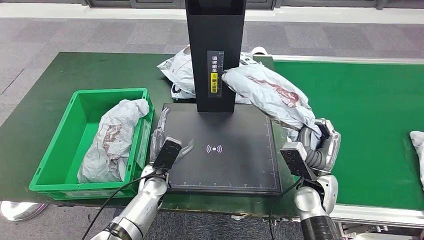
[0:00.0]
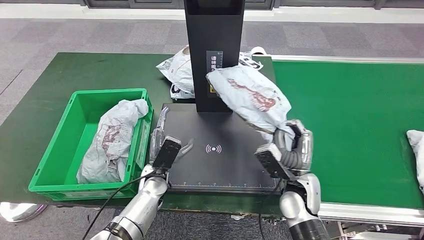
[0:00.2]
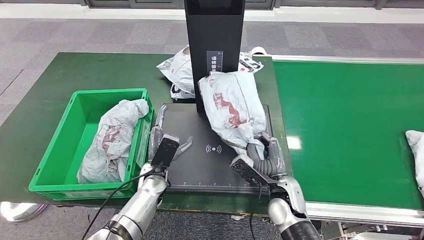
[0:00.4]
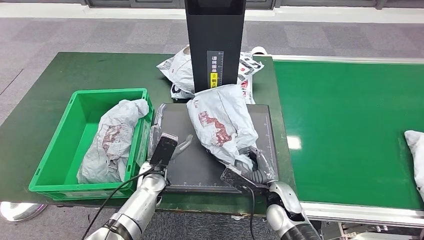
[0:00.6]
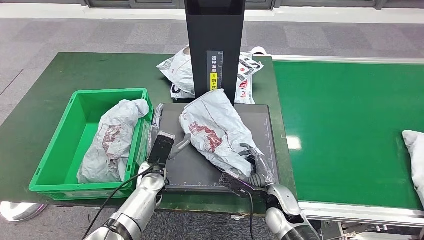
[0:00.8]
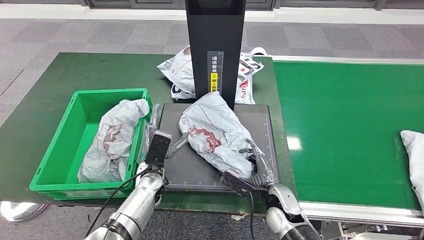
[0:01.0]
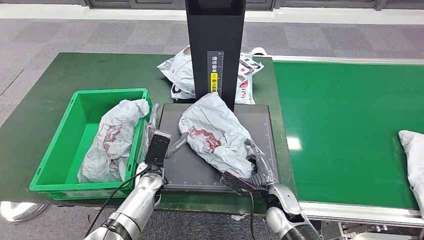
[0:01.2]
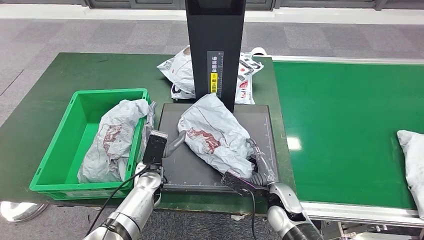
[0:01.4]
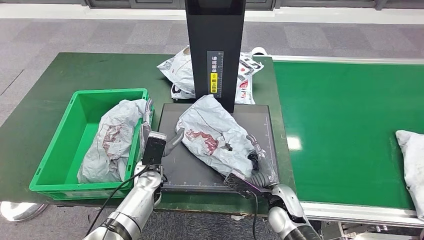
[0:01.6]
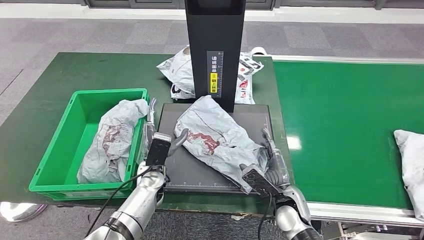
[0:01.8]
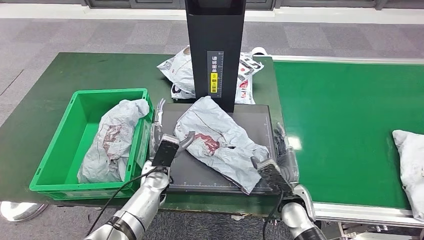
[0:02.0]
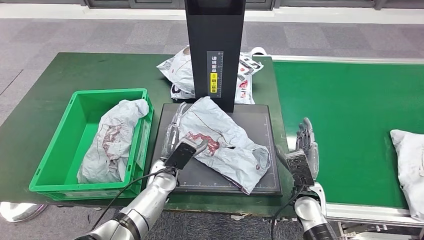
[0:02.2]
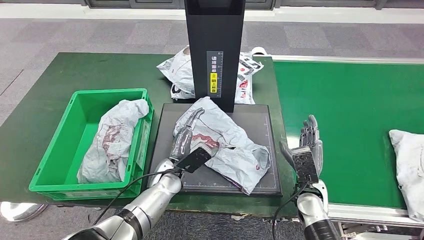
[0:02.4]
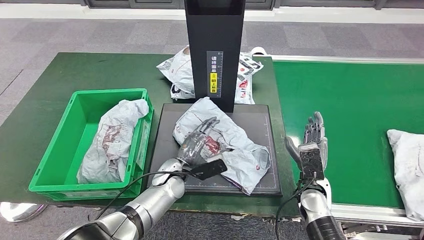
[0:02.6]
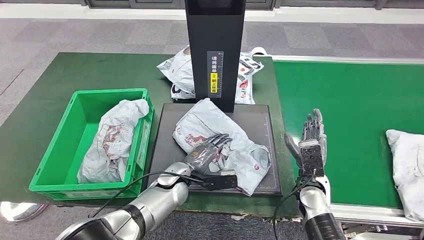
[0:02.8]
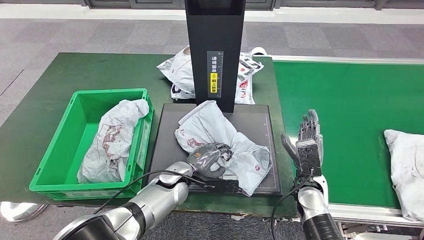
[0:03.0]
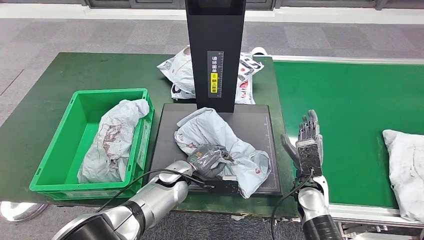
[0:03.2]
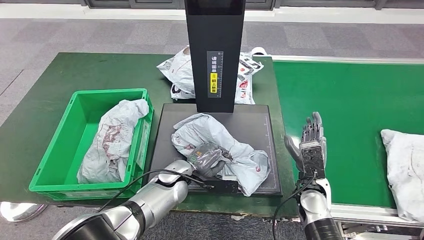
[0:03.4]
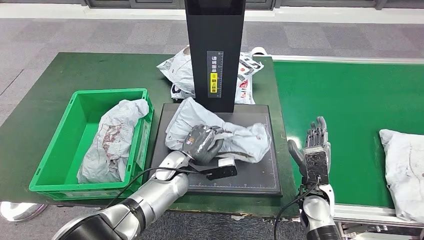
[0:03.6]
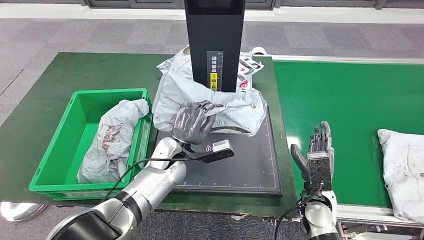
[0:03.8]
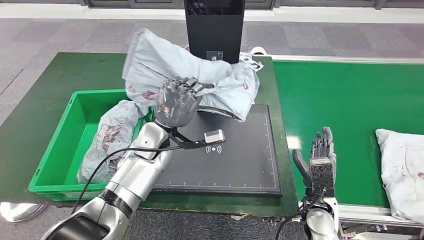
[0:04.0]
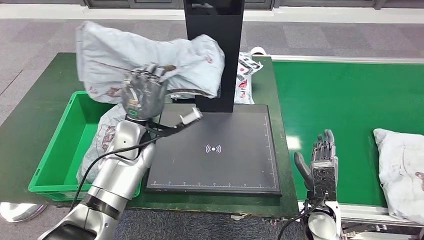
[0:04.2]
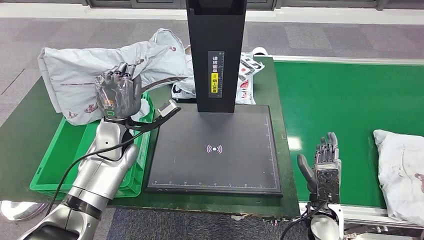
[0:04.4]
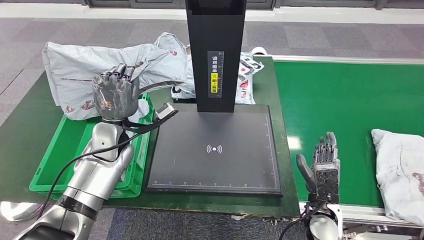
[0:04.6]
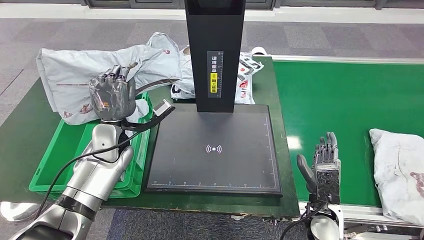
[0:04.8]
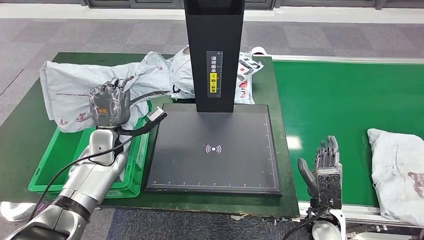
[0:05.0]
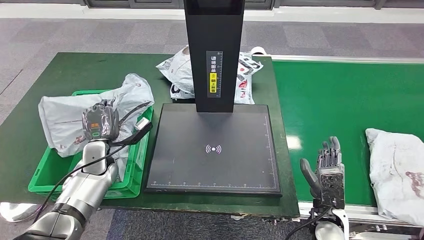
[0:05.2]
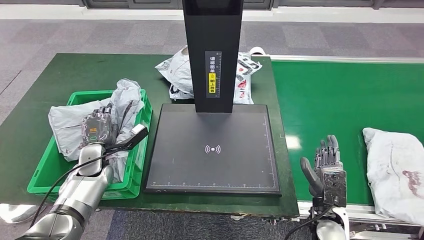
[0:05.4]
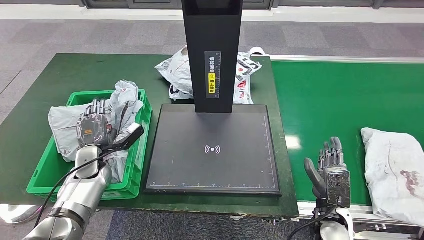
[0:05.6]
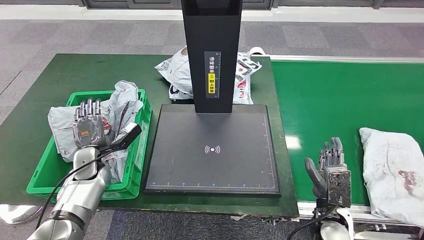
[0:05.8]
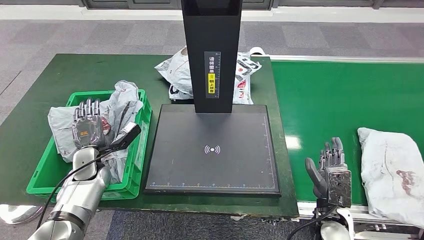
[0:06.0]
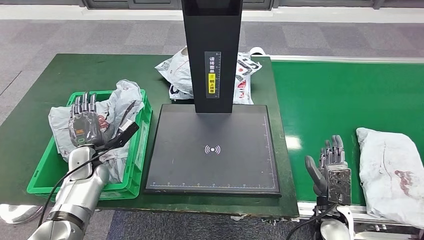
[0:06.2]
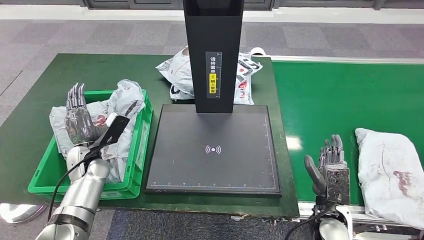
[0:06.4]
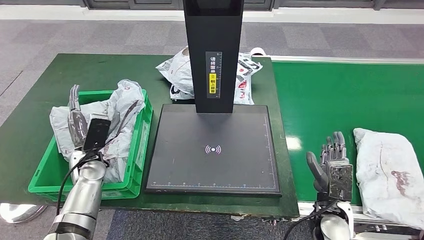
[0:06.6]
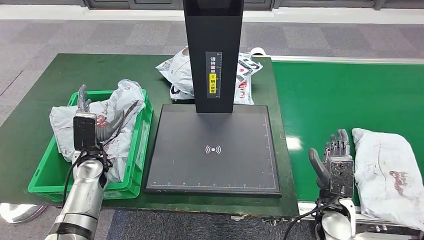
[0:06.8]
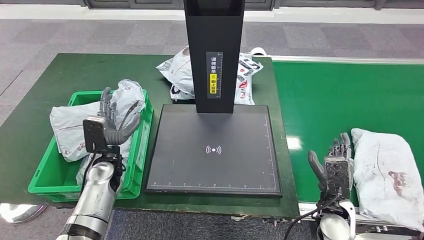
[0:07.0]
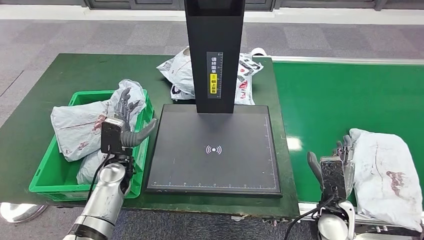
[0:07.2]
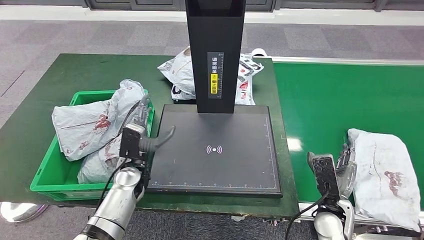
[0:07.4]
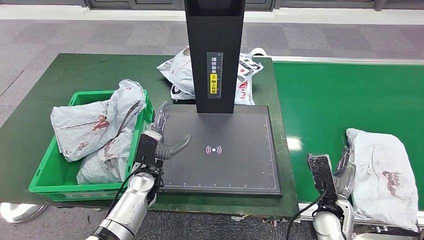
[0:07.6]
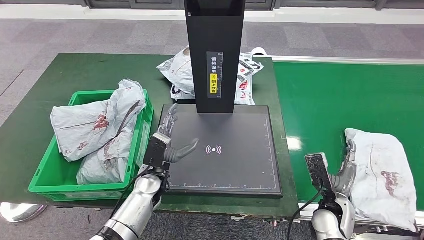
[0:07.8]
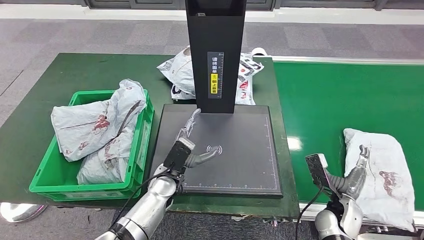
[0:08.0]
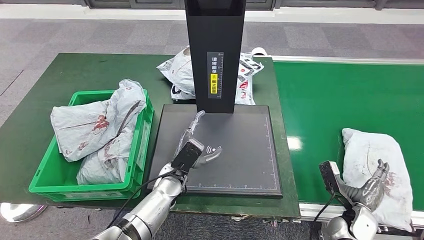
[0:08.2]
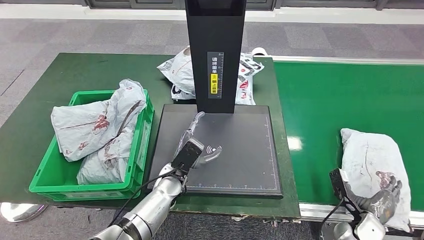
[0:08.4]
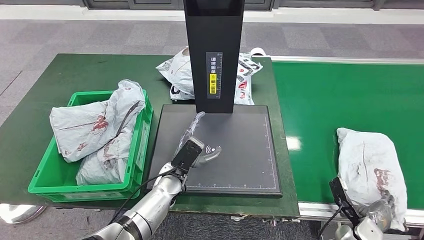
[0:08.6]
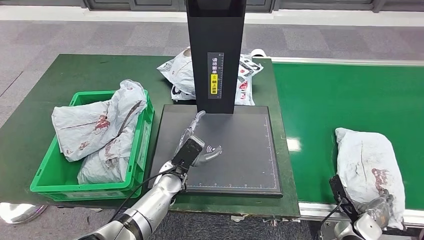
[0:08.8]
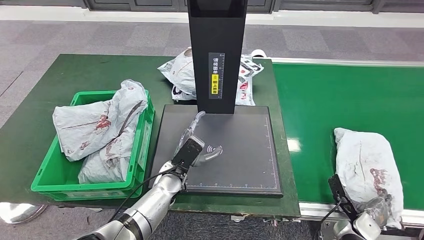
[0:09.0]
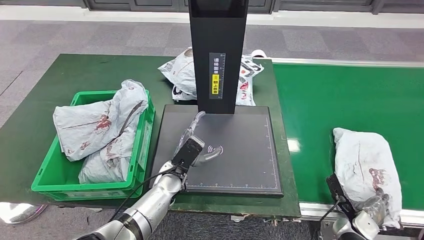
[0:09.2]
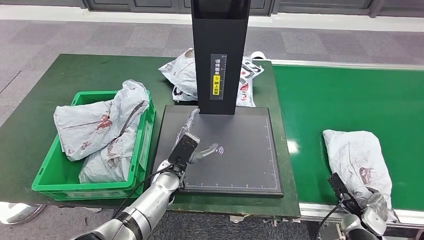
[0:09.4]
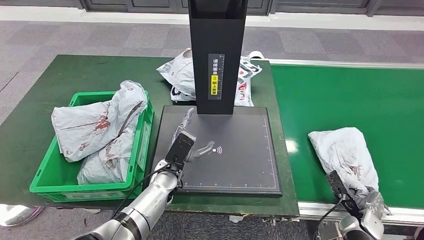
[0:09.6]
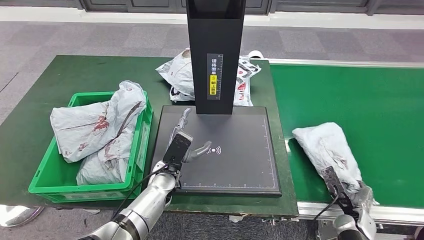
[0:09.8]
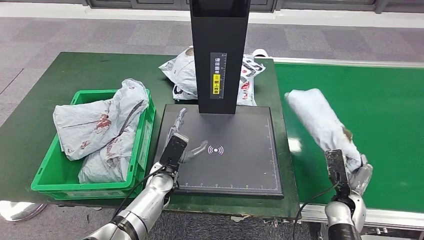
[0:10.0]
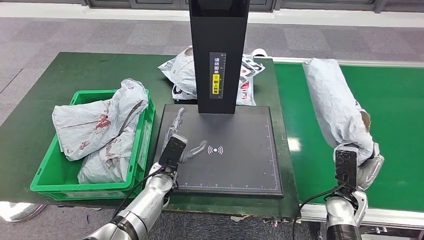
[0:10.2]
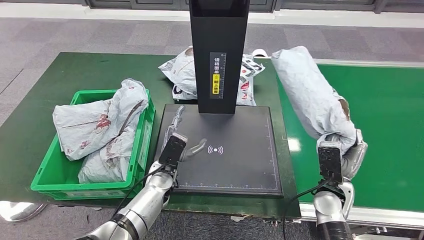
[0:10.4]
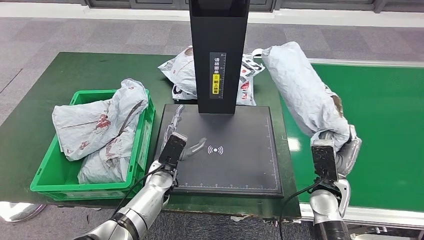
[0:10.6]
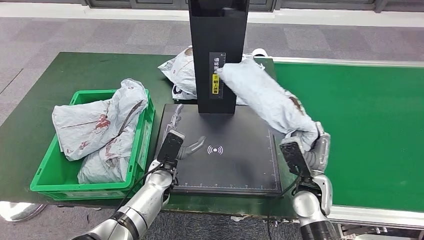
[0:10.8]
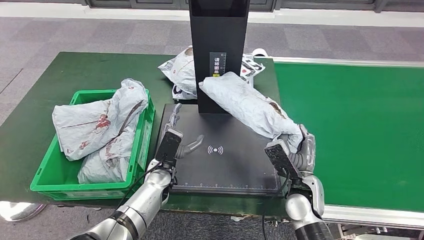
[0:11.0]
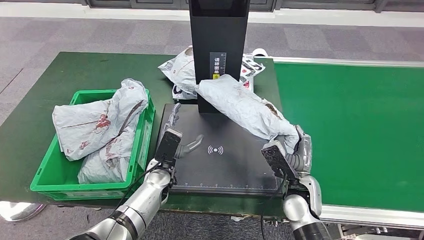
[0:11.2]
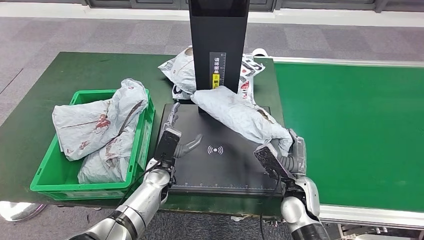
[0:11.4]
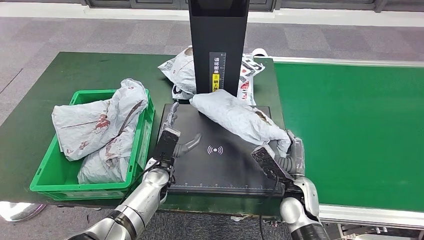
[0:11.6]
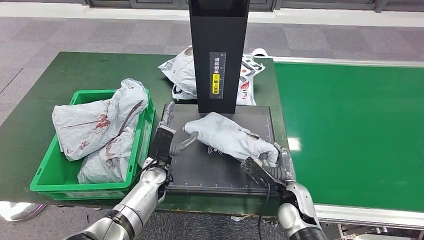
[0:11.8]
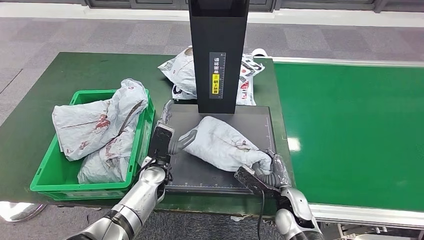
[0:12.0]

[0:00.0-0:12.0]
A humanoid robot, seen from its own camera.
Step, 0:00.0 to 0:02.6: Place the parcel onto the inbound machine.
Step, 0:02.8 to 0:04.0: Pick up the parcel from the inbound machine.
Step, 0:04.2 to 0:07.4: Place the parcel into the delivery box.
Step, 0:07.6 to 0:10.0: Pick up the parcel from the conveyor belt.
0:01.6 to 0:03.0: The hands both shift to the right by about 5 cm.
0:10.4 to 0:12.0: The right hand shifts about 10 cm to the left and downward.

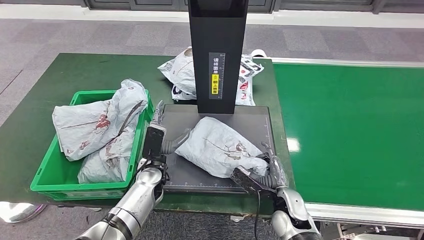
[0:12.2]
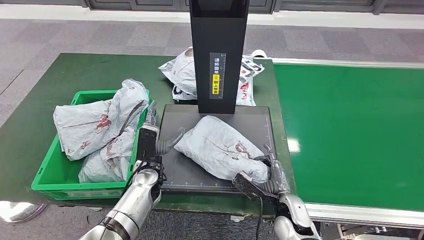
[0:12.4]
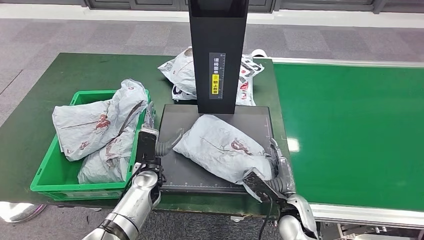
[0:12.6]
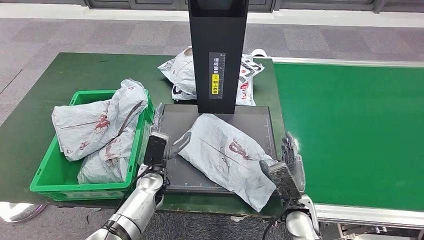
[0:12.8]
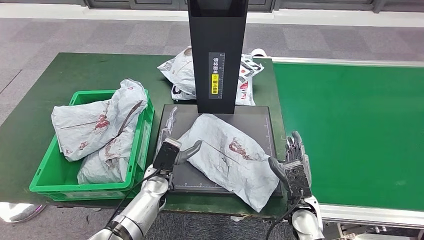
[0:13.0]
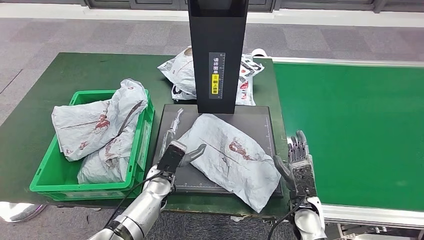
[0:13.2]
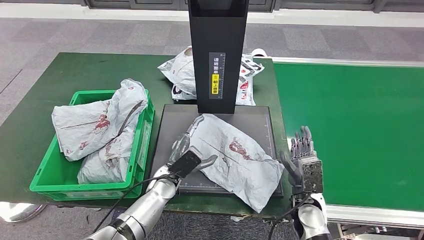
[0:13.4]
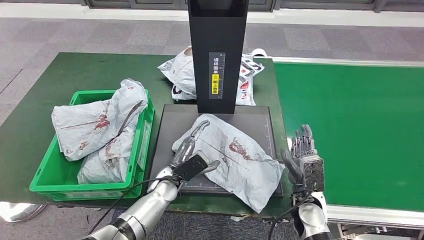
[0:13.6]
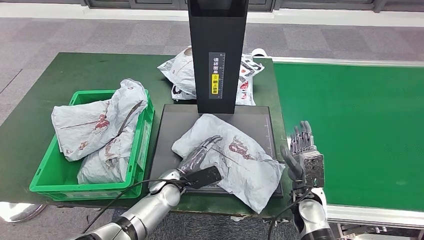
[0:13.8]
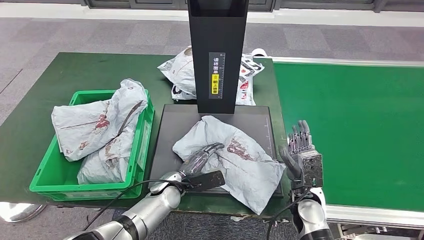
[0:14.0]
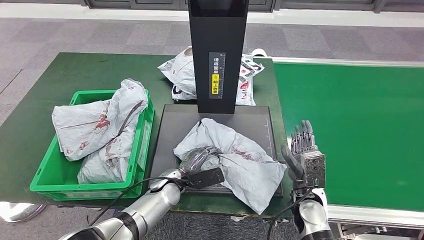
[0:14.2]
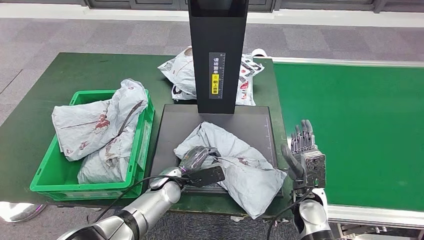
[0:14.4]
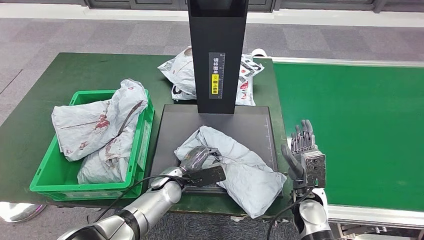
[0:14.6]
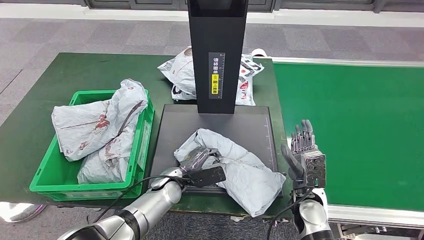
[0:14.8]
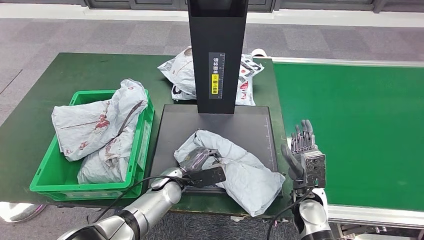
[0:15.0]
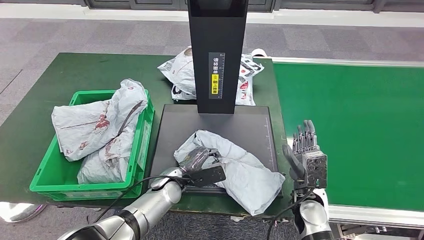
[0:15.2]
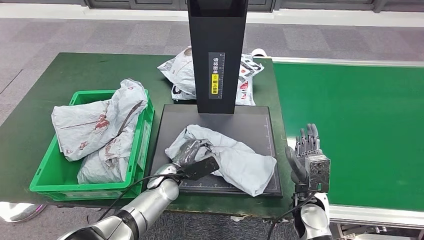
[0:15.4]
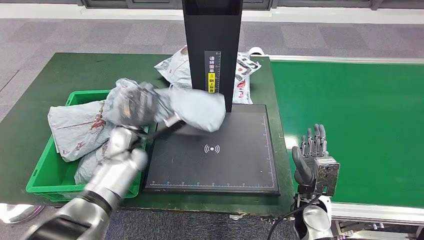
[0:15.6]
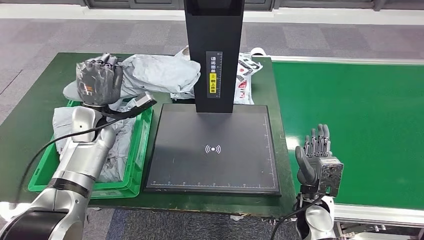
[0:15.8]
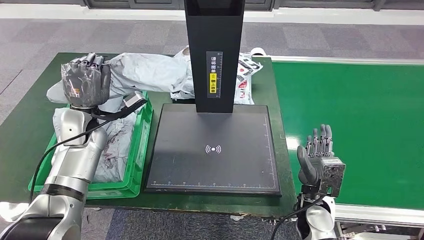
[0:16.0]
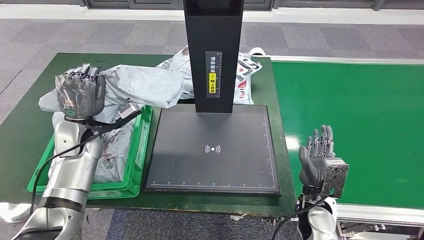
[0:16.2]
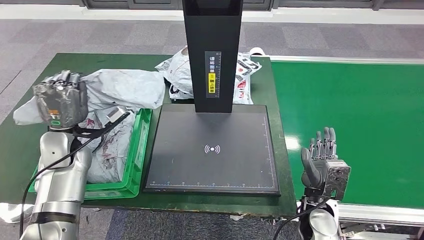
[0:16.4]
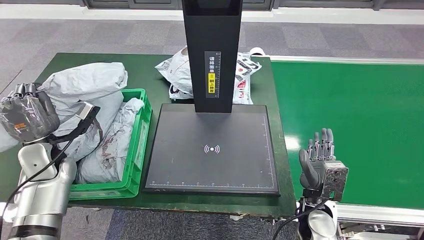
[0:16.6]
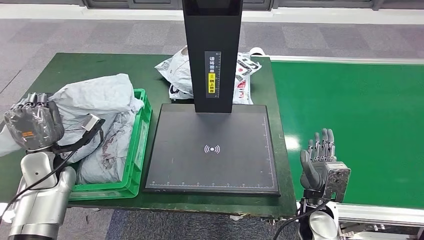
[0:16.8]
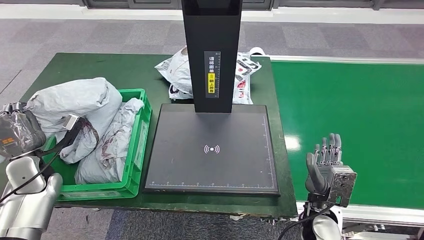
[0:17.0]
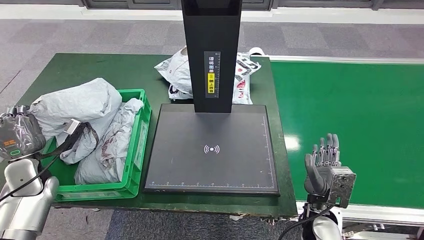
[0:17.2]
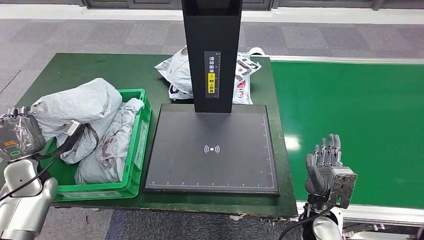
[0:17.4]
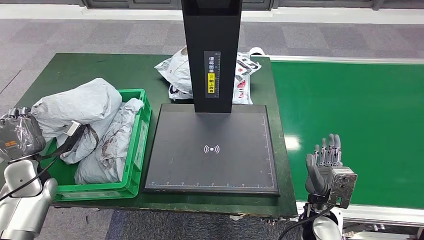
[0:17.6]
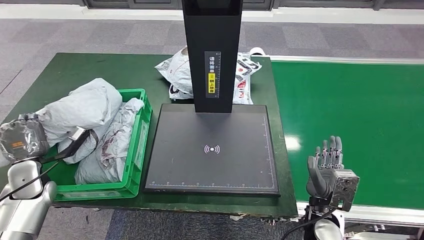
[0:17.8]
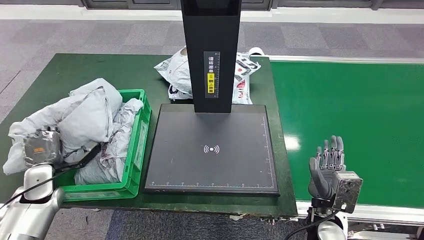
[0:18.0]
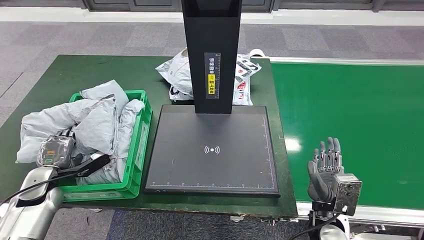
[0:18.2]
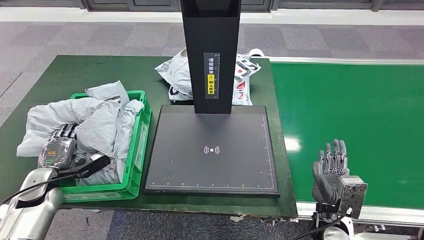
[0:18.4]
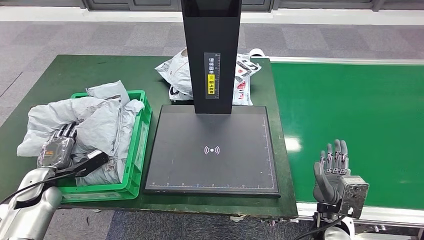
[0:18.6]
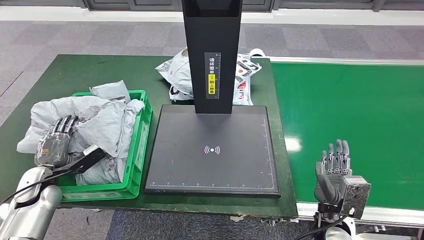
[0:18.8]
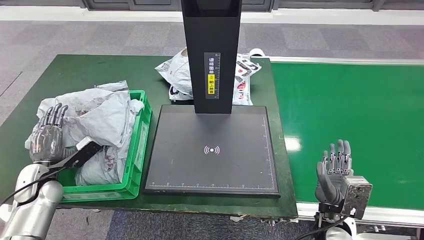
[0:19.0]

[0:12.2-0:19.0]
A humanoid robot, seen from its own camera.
Step, 0:12.8 to 0:15.4: Pick up the parcel from the inbound machine.
